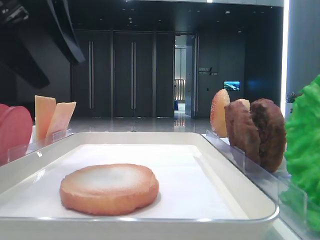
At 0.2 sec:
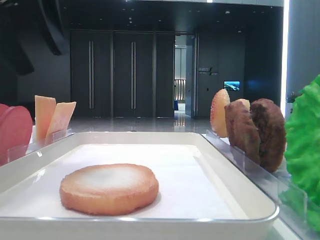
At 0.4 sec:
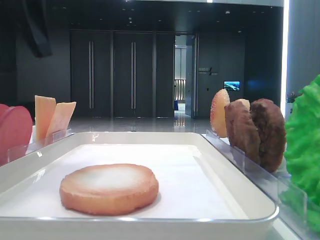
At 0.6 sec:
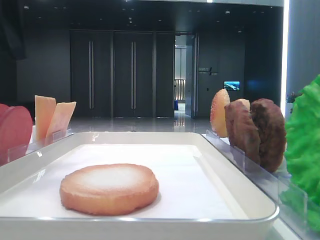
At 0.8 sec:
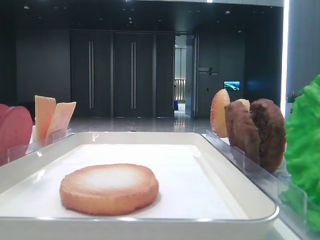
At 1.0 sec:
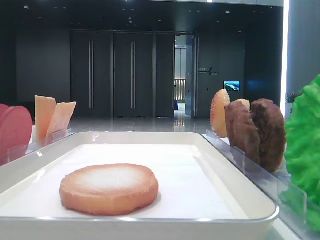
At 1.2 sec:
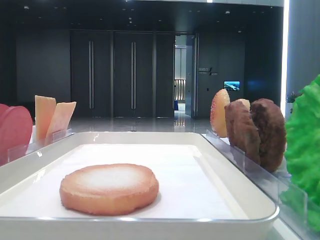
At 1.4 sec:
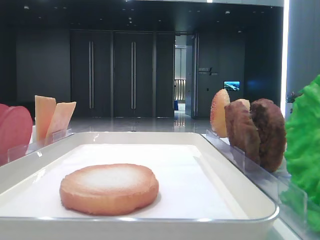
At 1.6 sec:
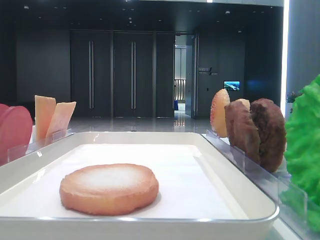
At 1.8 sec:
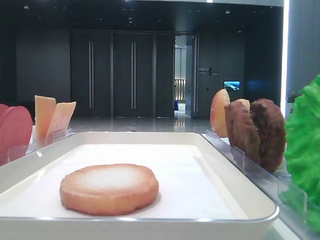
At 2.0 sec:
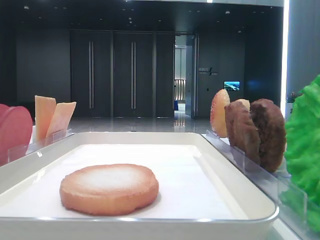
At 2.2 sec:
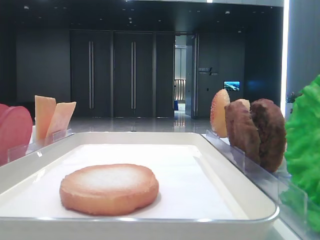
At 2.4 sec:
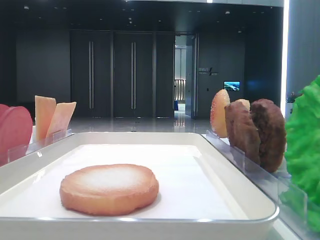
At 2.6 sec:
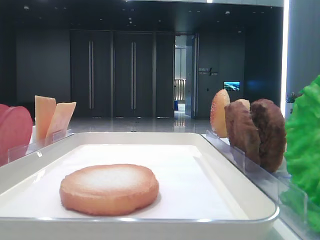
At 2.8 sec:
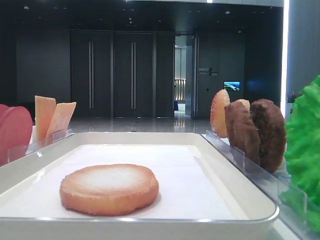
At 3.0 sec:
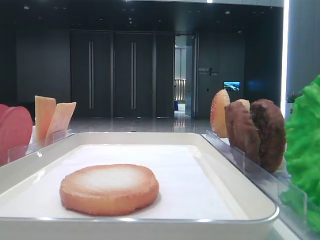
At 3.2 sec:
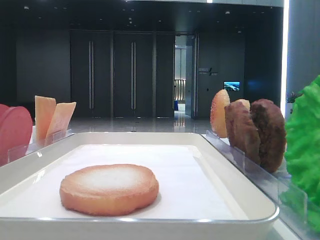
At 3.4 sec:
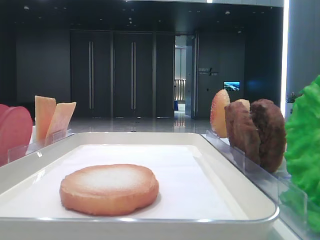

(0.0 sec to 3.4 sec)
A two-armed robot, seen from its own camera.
0.0 sec - 1.6 sec: The left gripper goes roughly 15 cm to the left.

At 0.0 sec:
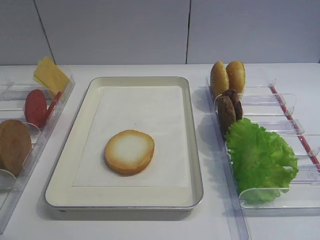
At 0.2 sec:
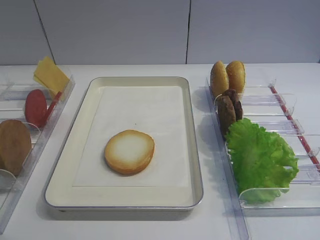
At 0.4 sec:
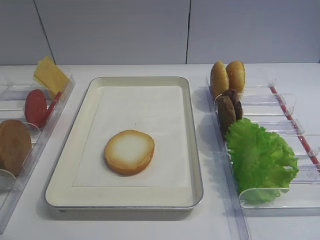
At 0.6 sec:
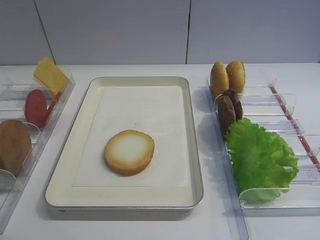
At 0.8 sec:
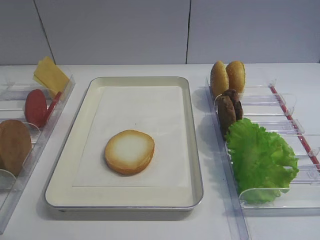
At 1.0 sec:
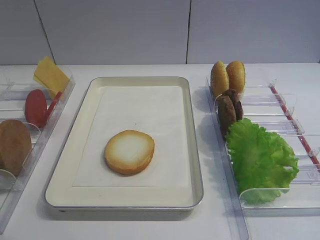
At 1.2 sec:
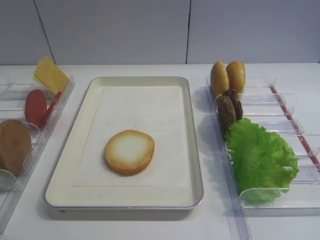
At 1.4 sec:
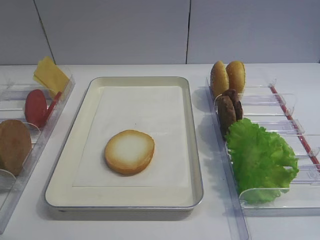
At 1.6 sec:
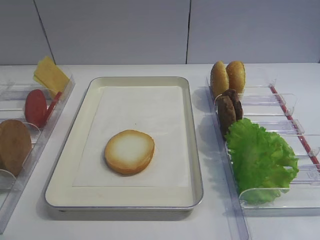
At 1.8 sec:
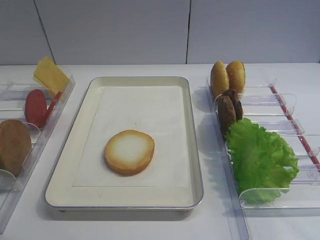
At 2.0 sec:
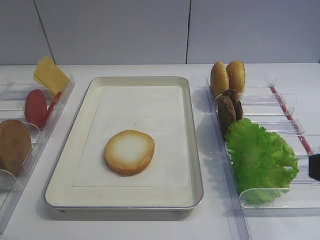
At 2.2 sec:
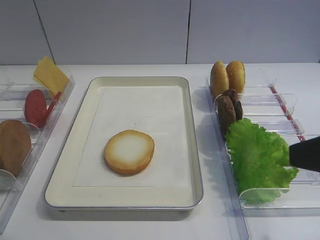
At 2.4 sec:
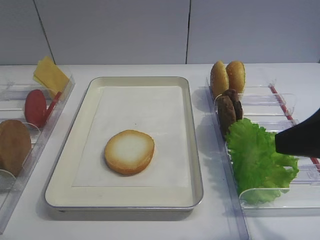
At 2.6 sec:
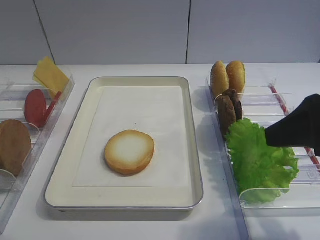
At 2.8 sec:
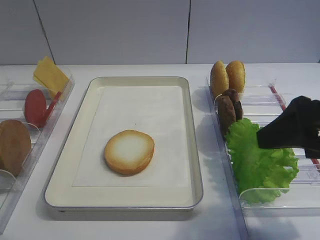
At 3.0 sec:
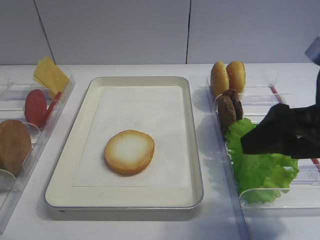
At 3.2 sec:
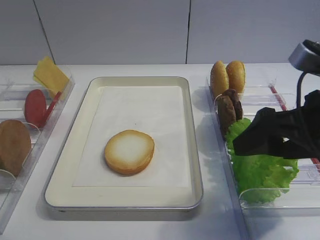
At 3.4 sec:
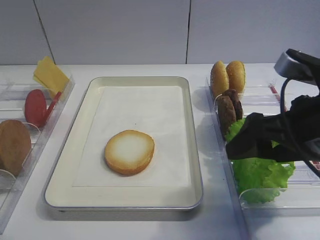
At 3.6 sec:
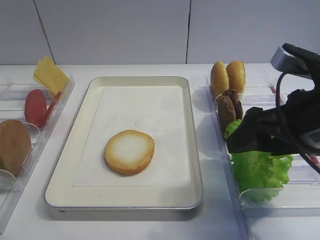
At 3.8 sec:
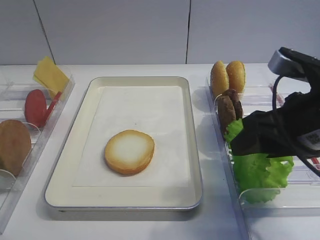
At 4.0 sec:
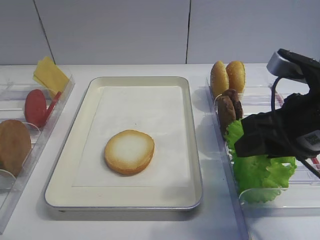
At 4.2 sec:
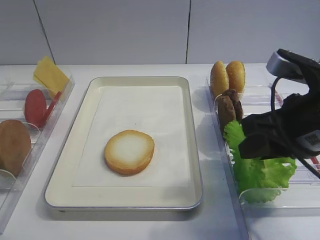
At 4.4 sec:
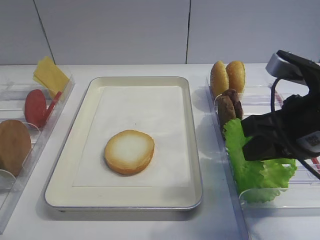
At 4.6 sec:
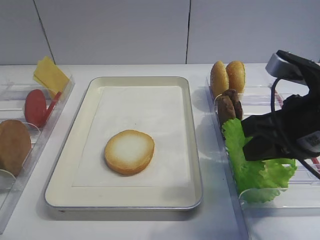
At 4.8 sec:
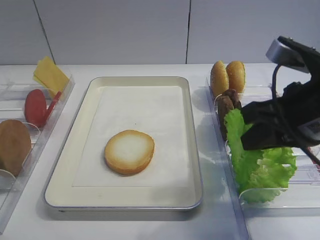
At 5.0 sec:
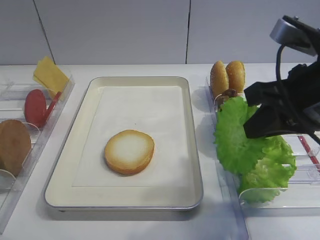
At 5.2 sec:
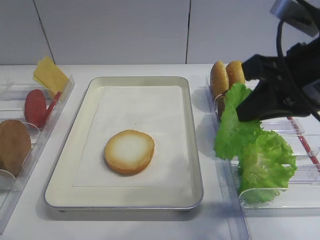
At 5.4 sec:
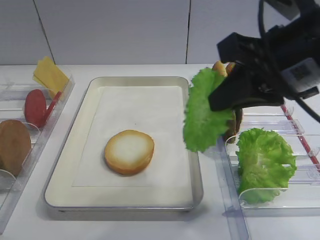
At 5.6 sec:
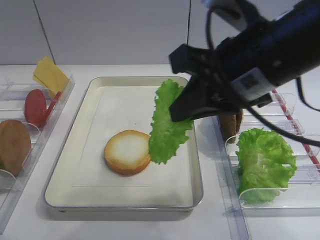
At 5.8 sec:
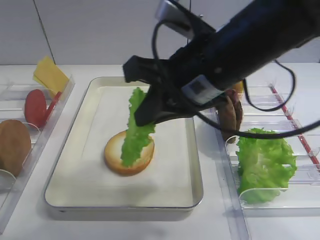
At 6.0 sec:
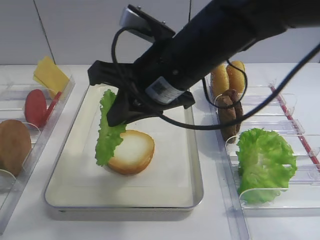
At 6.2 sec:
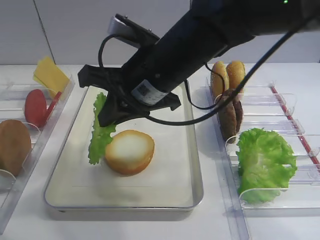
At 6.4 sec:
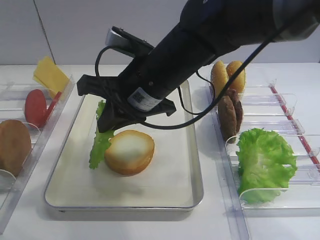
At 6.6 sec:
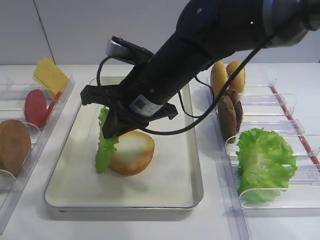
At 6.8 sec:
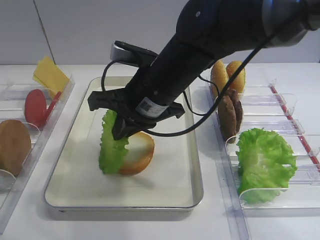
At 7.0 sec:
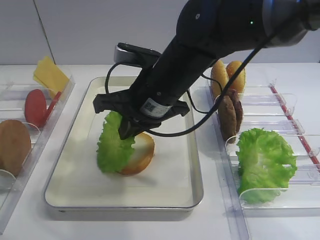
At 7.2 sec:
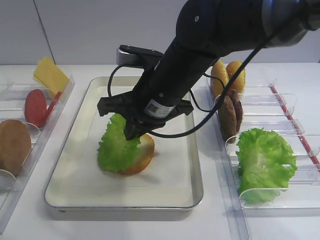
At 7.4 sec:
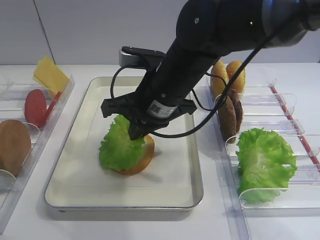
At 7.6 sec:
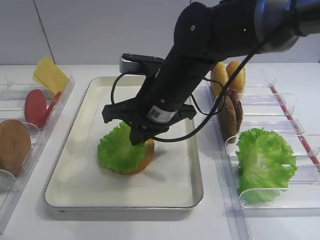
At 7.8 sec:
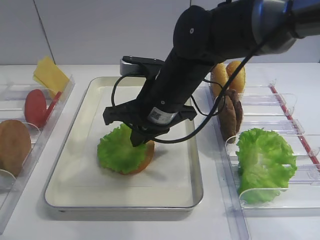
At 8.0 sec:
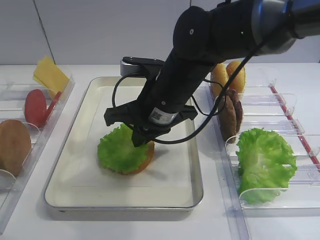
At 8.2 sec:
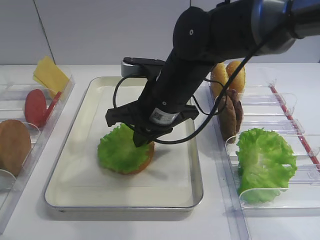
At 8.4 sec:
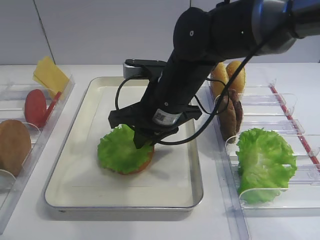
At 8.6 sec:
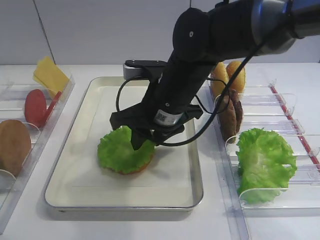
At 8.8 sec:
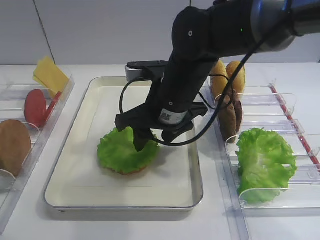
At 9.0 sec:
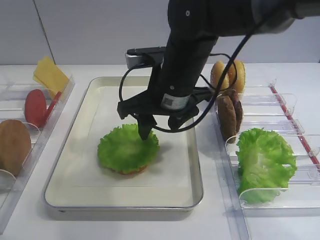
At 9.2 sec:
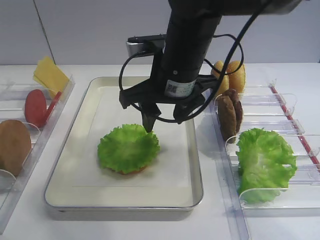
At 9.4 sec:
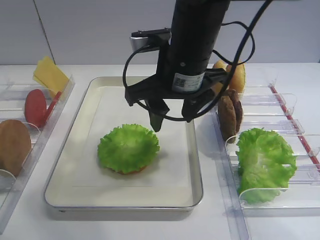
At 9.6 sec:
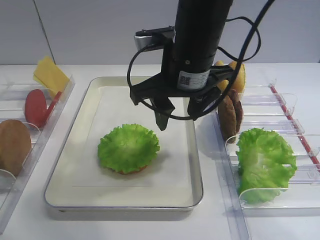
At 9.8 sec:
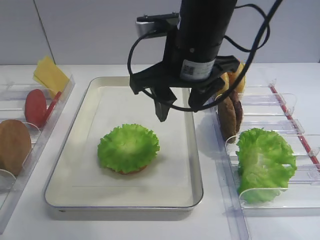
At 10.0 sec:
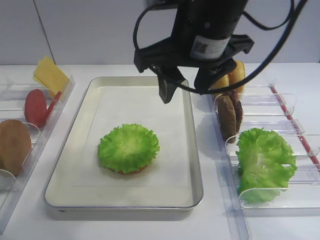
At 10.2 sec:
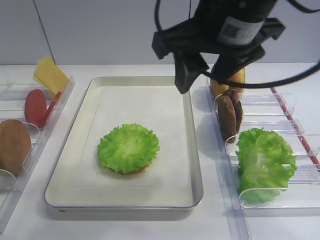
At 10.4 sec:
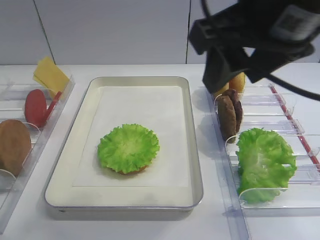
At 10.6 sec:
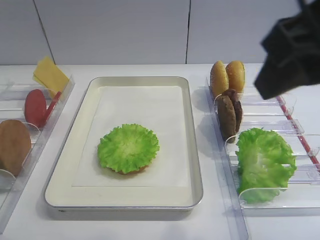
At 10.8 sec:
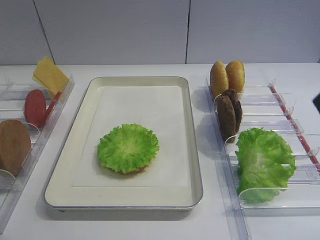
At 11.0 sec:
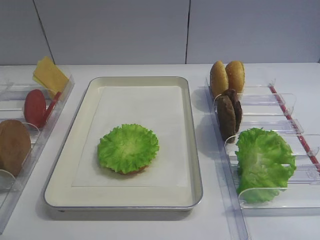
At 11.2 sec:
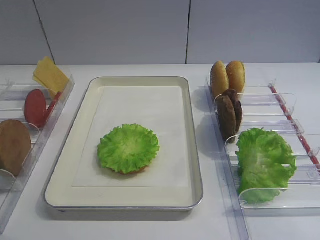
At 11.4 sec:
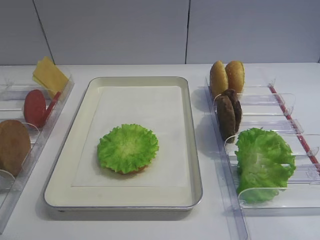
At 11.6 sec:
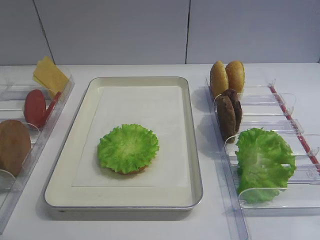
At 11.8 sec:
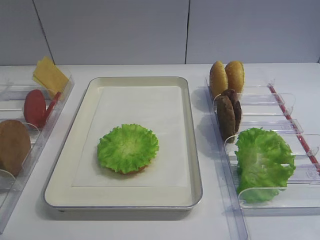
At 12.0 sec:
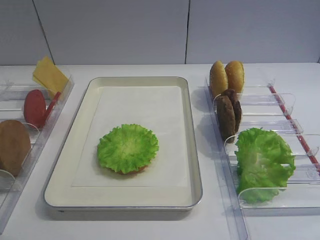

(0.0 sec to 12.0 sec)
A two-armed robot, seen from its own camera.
Step, 0.0 sec - 5.0 sec: Pick up the lettuce leaf with the right gripper.
Step, 5.2 sec - 9.4 sec: Place the lettuce leaf on the bread slice with the right gripper.
1.6 sec - 3.0 sec: The right gripper travels forward by roughly 15 cm.
3.0 sec - 4.4 sec: The right gripper closes up.
4.4 sec - 6.0 sec: The right gripper moves to the left, approximately 15 cm.
6.0 sec - 7.6 sec: The right gripper travels downward by approximately 5 cm.
7.6 sec - 9.0 sec: The right gripper opens.
9.0 sec - 10.4 sec: The right gripper goes approximately 20 cm upward, backward and to the right.
10.4 sec - 12.0 sec: The right gripper goes roughly 30 cm backward, to the right and downward.

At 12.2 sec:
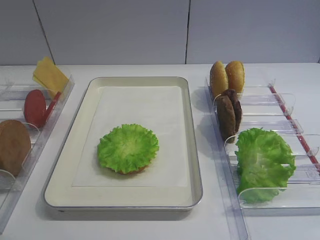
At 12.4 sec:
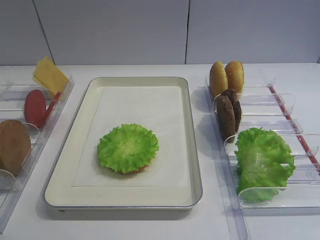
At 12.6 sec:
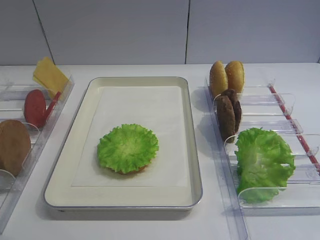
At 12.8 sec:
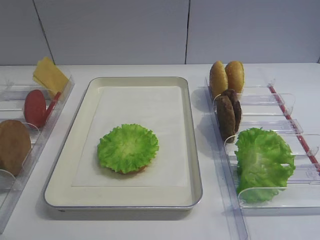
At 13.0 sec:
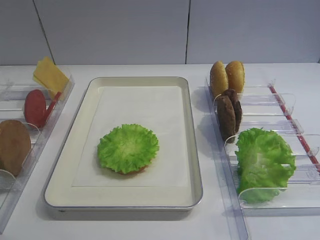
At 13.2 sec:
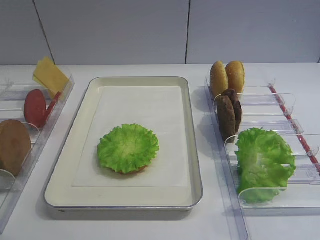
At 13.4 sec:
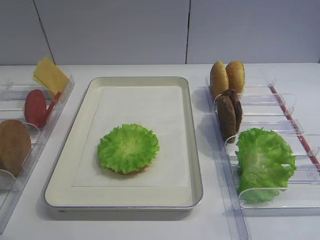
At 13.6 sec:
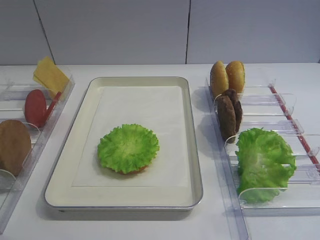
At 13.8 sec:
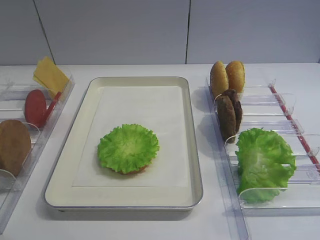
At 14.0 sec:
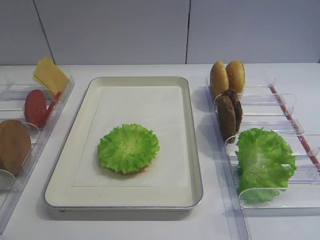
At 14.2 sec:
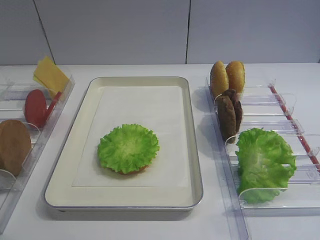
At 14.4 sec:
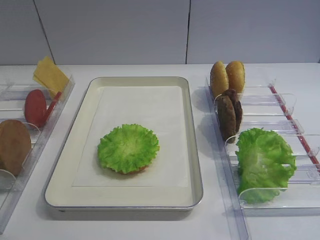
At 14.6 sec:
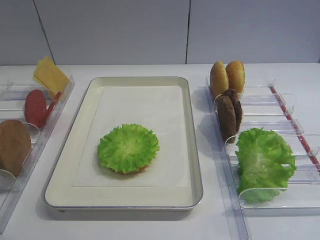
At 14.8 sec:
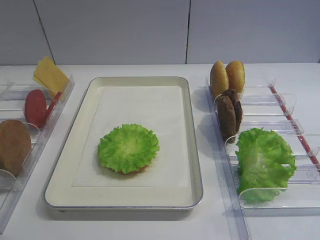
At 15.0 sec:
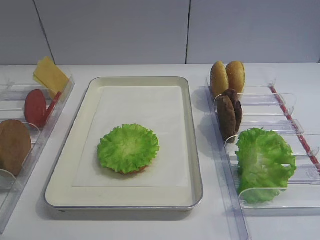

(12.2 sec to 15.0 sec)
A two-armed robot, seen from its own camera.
13.6 sec - 15.0 sec: The two grippers keep their place.
